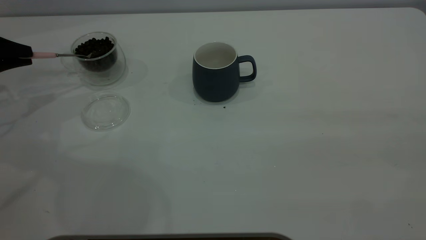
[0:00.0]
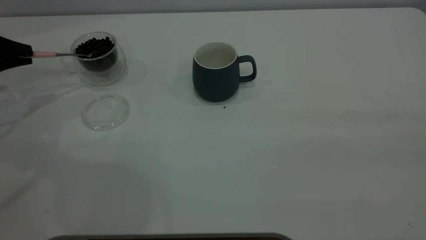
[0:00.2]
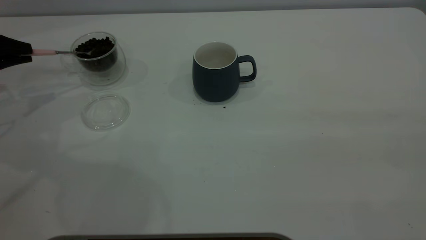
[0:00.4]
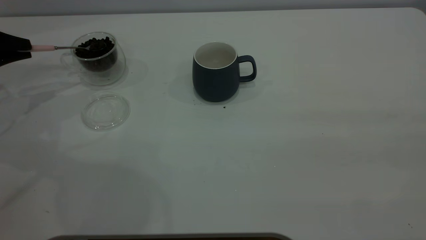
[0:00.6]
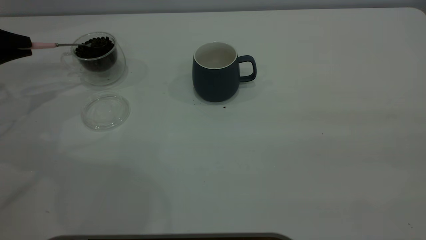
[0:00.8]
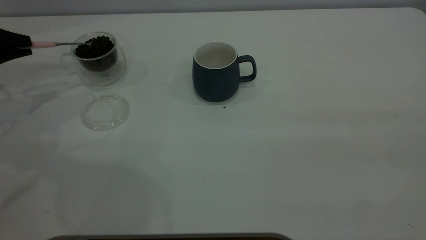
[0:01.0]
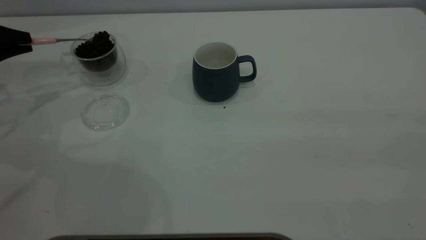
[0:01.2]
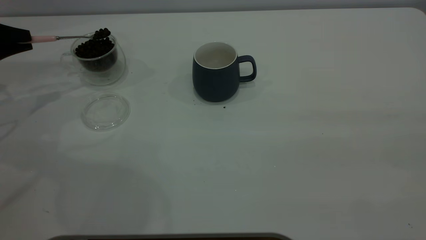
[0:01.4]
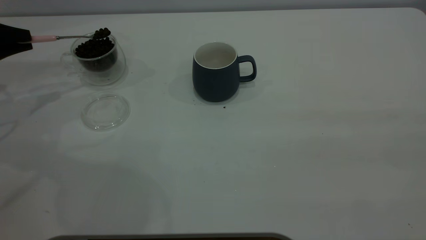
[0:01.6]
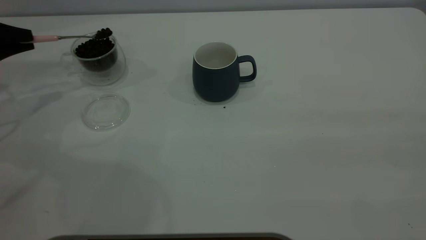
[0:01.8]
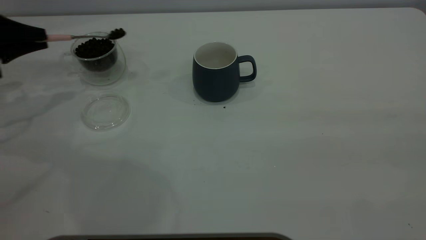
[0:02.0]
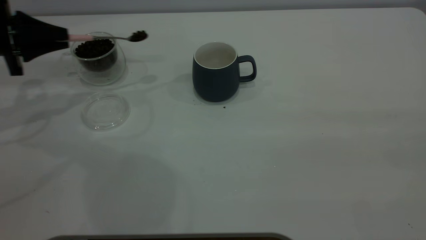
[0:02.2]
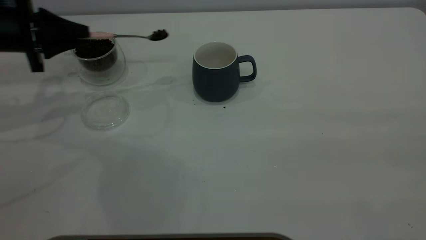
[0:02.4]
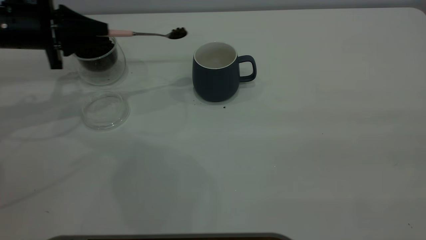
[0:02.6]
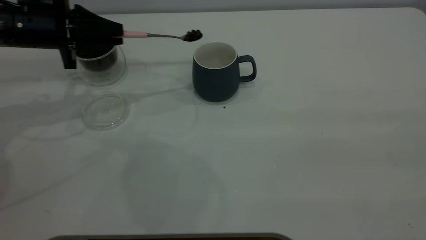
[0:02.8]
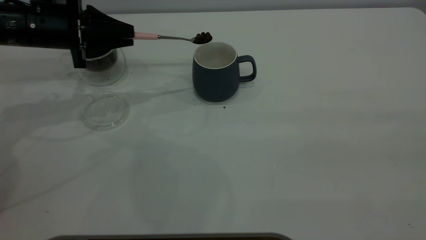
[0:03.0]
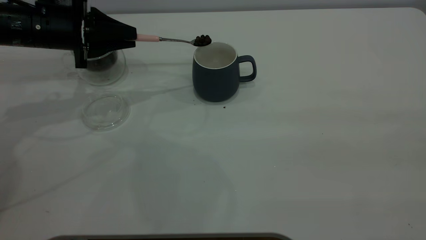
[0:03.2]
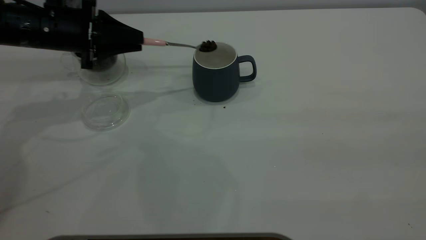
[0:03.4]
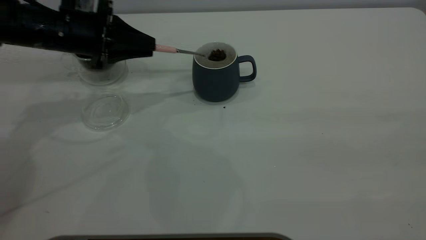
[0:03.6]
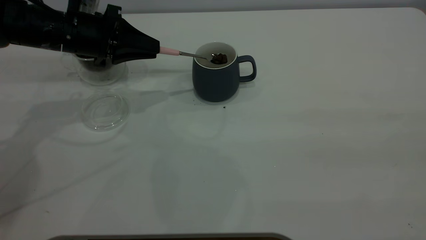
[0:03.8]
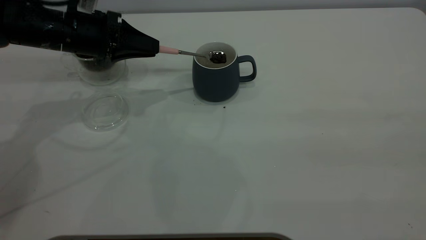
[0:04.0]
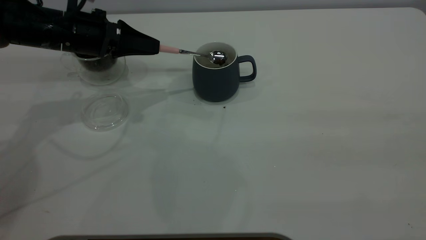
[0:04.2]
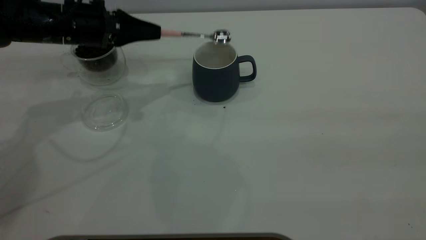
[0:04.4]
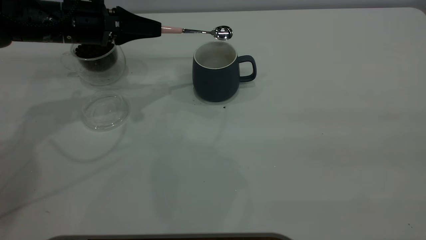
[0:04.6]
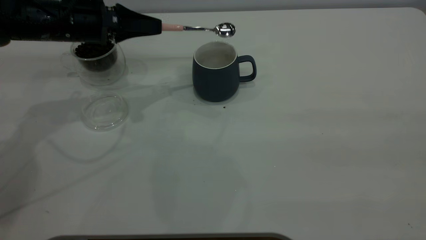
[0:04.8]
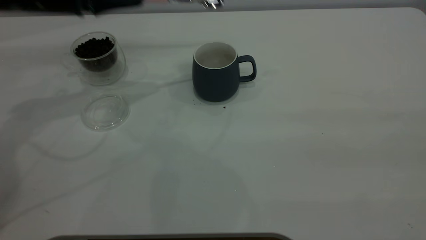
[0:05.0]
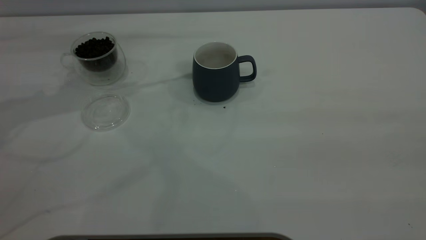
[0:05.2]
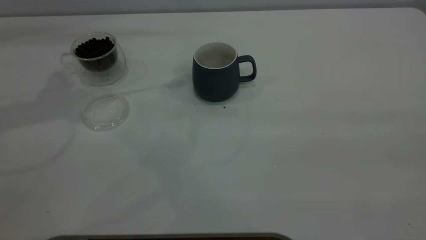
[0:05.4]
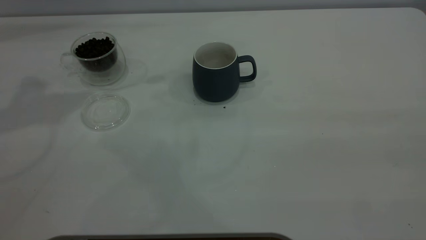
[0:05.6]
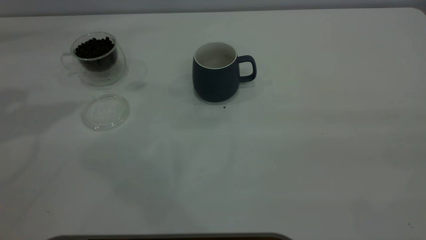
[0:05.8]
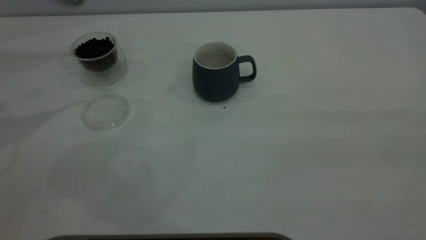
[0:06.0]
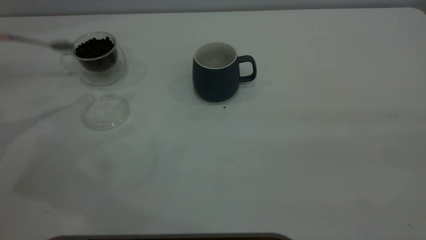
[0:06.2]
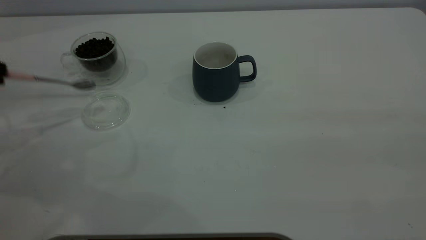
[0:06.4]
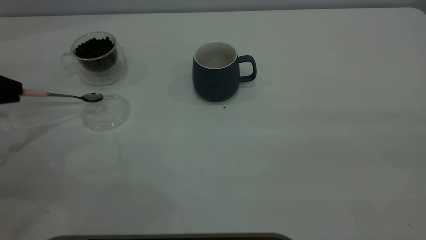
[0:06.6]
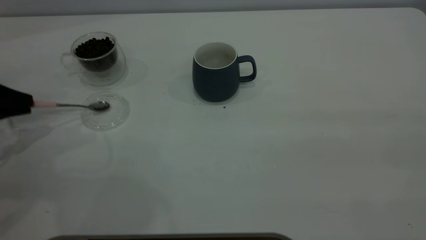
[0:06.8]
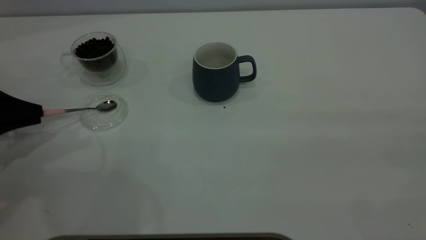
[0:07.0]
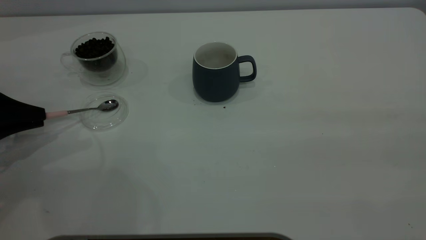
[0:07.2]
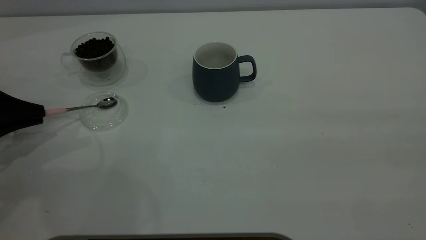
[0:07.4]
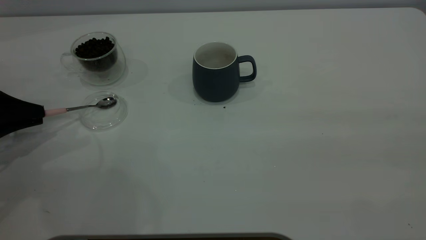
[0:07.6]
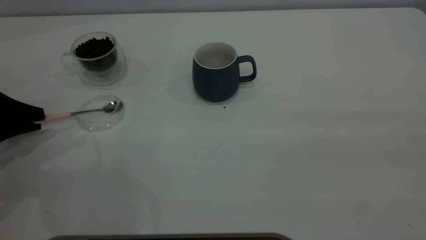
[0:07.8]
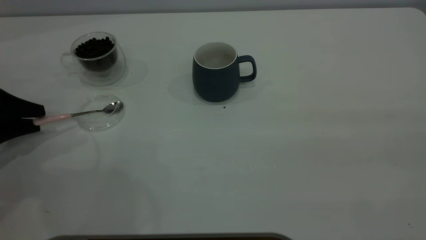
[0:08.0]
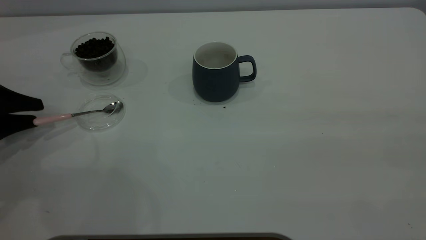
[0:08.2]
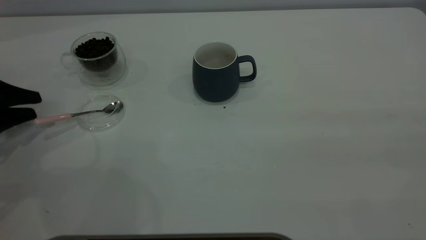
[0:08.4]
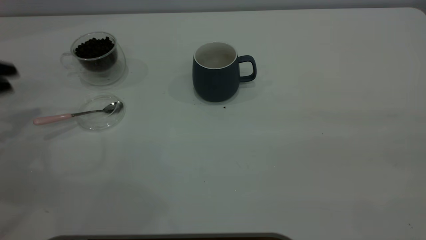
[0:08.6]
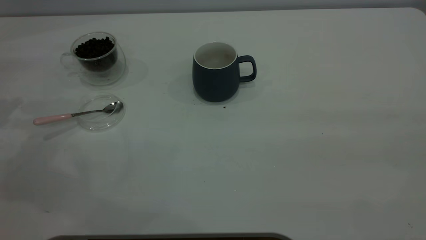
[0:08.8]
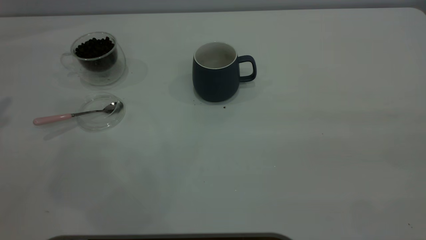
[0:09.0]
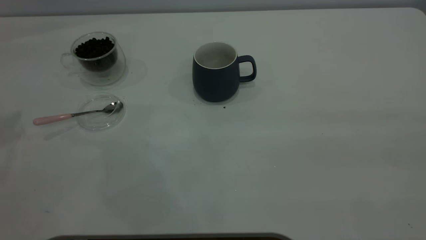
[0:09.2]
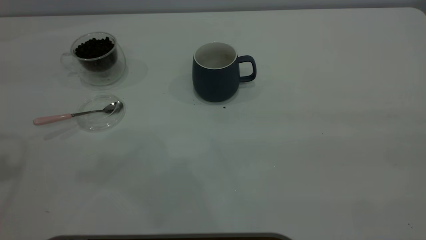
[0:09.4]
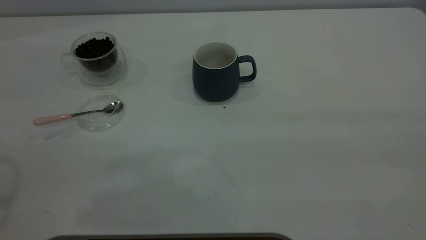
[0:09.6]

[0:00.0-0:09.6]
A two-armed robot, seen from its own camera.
Task of the whole recording: the right gripper place the grey cup in the center of the table, the left gripper take the pink spoon from the cup lid and scoop out the coffee beans from the coffee cup and put them into the grey cup, the left gripper put the spoon back into the cup lid.
Step, 0:00.0 to 0:04.4: Scoop a spoonful of beans into the cup.
Step, 0:04.6 to 0:08.4: Place the spoon back in its original place.
0:00.0 to 0:01.6: There are only small adjustments of the grippers.
0:01.6 to 0:03.2: The left gripper travels to the right by roughly 15 cm.
0:04.8 to 0:06.4: The left gripper goes about 20 cm to the left and backward, and goes upward and returns, about 20 cm each way.
0:06.4 to 0:08.0: The left gripper is displaced downward by about 10 cm, and opens.
0:08.0 to 0:09.6: The left gripper heads upward, covering about 35 cm.
